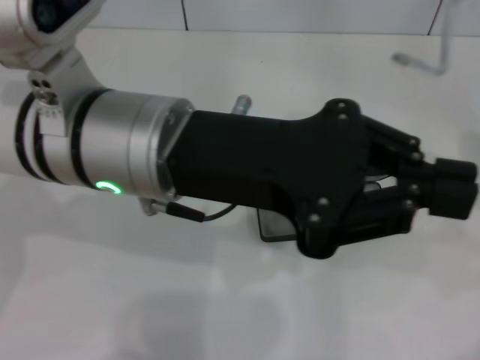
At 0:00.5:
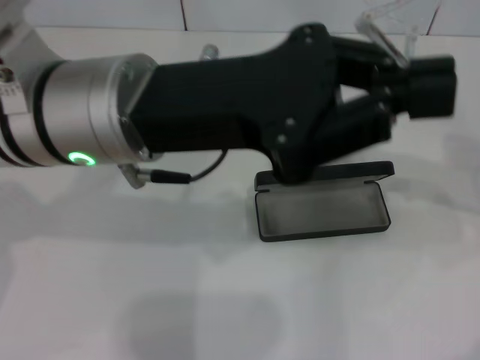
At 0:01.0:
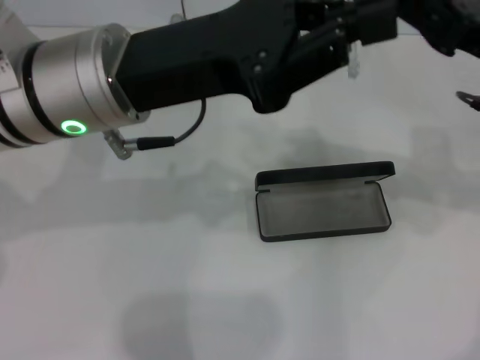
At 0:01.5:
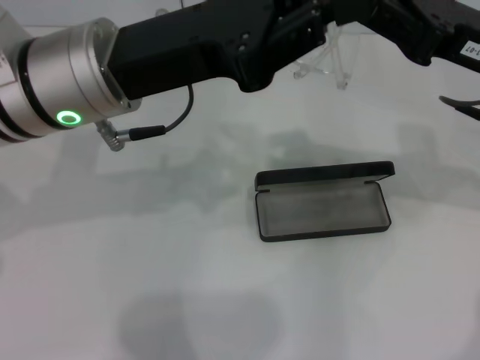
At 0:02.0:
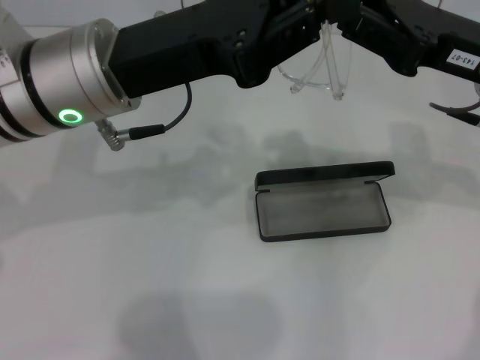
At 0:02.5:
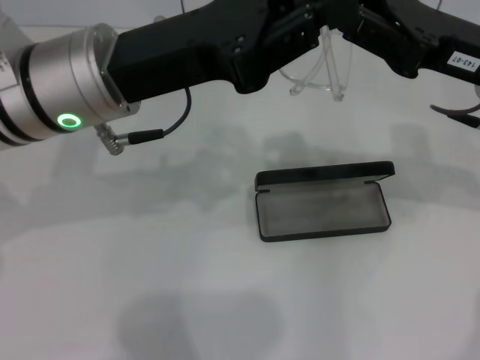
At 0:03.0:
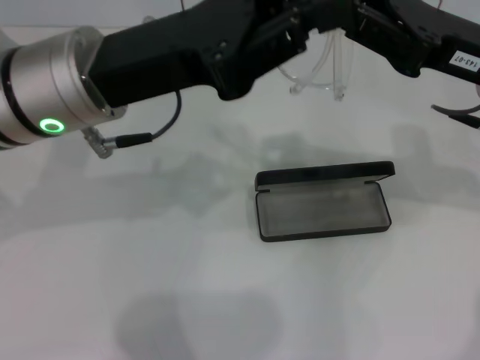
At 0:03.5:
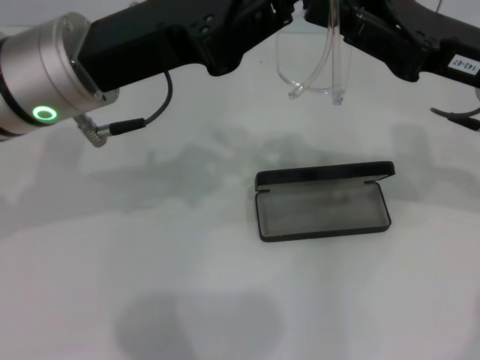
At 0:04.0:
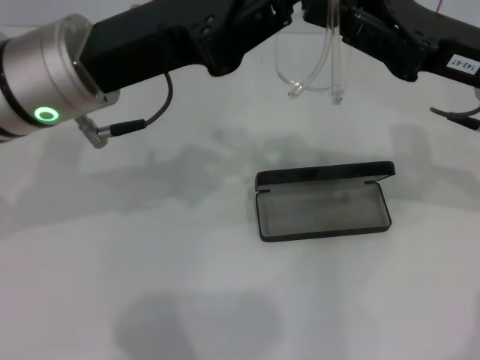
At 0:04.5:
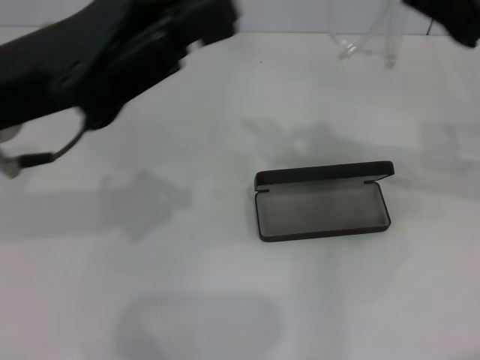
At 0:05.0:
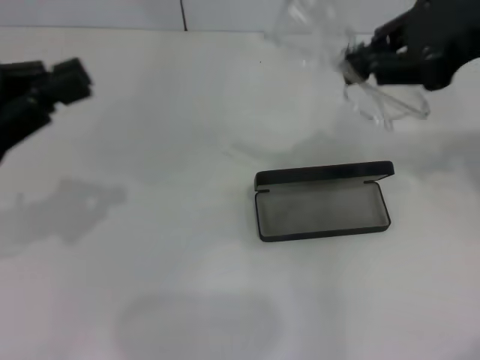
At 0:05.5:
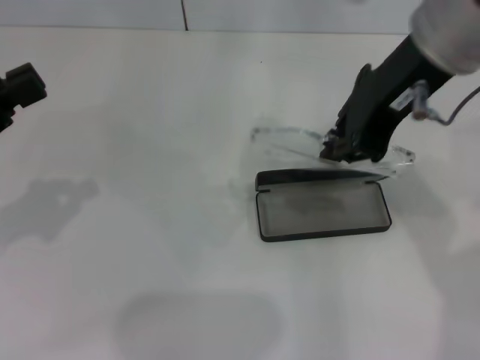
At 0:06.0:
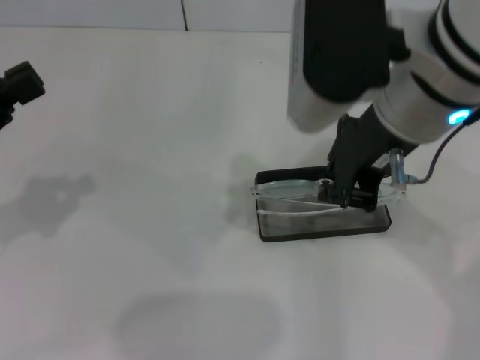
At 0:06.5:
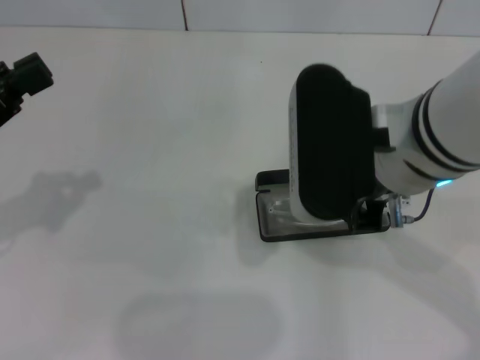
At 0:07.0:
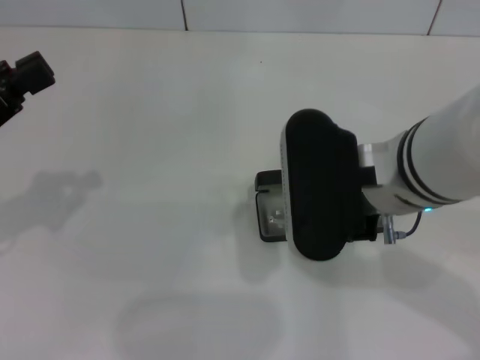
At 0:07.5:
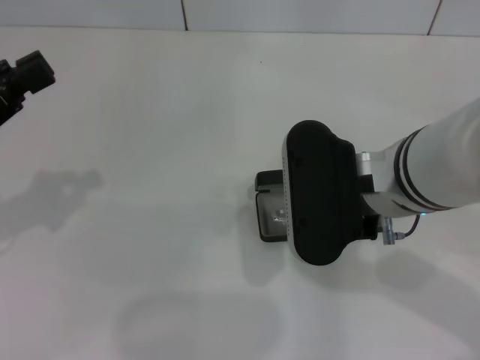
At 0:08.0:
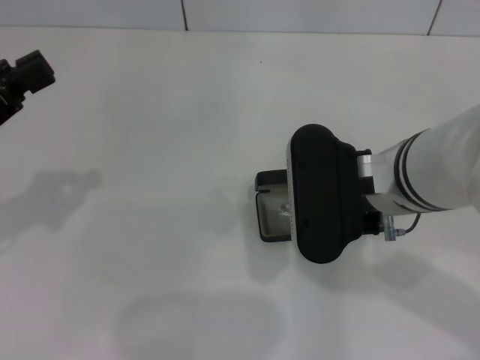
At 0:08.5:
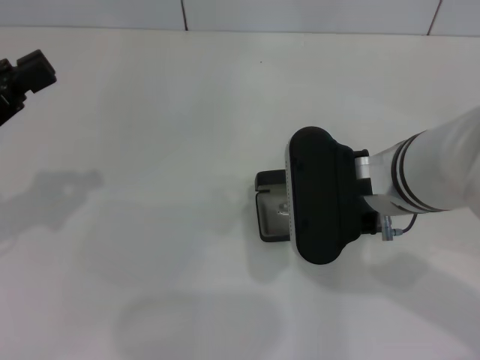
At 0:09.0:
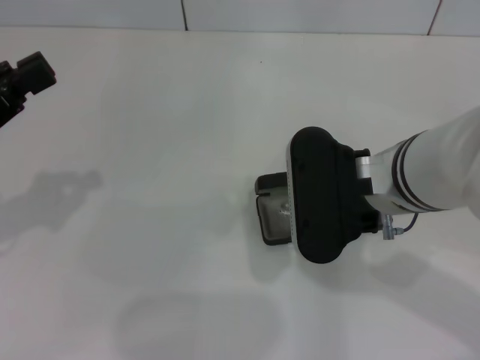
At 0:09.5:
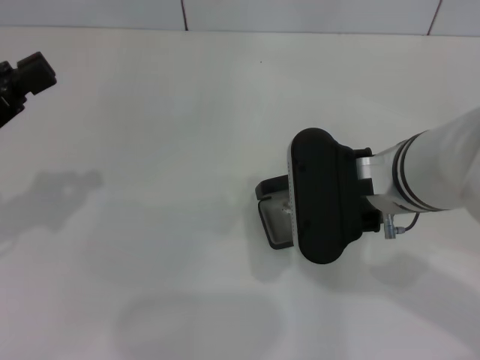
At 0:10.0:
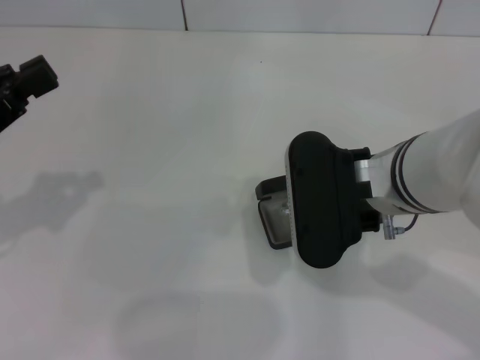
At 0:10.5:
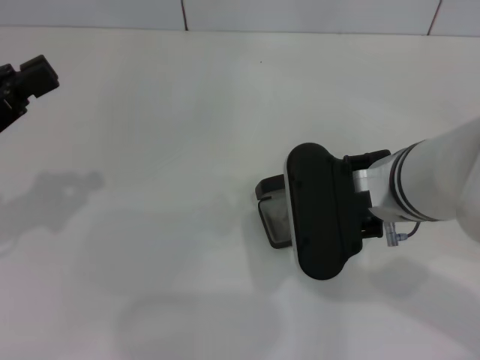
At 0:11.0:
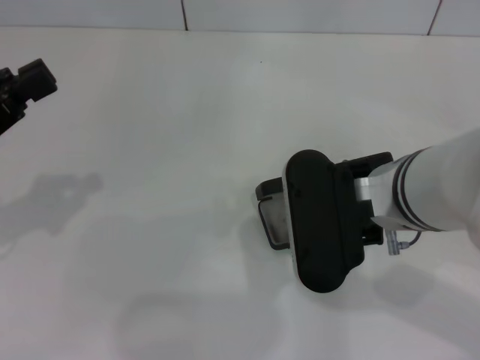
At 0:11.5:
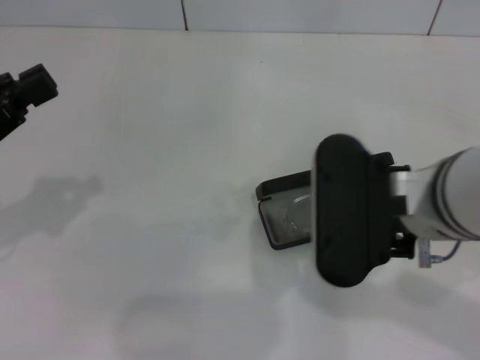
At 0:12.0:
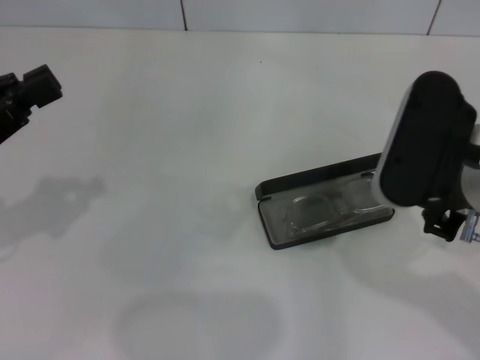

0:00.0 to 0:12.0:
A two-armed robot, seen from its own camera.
Step, 0:00.0 to 0:04.0: Fold the frame with your left hand.
Step, 0:04.5 to 0:11.0: Put the glasses into the case with your right hand.
0:00.0 to 0:02.0: The left gripper ends up about 5 cm from where it was. Meanwhile the right gripper shifts approximately 5 cm to the left.
0:02.0 to 0:04.0: Both grippers stay put.
0:04.0 to 0:06.0: The left gripper moves to the left and backward, about 20 cm; the right gripper travels to the left and upward by roughly 15 cm.
0:06.0 to 0:08.0: The right gripper goes roughly 10 cm downward.
0:08.0 to 0:10.0: Both grippers stay put.
0:10.0 to 0:12.0: The right gripper shifts roughly 5 cm to the right.

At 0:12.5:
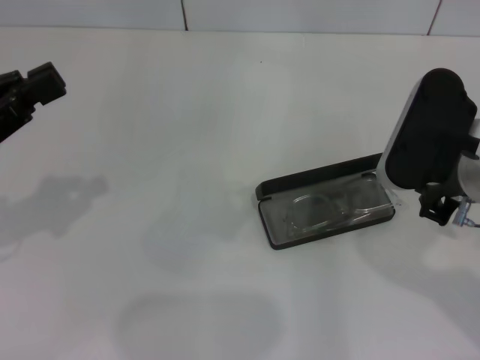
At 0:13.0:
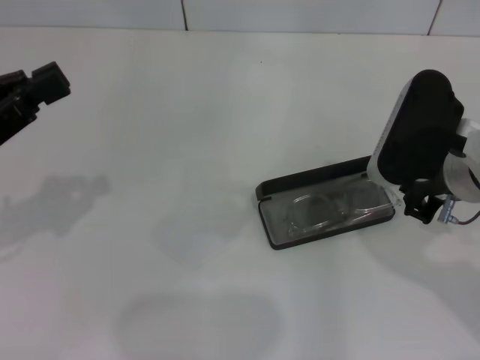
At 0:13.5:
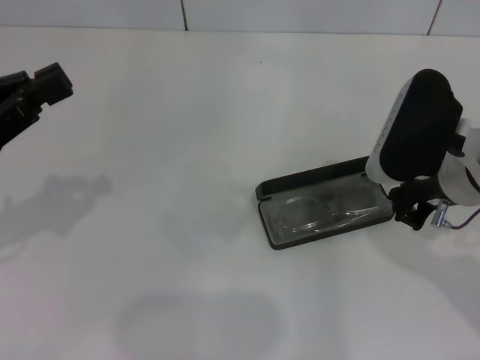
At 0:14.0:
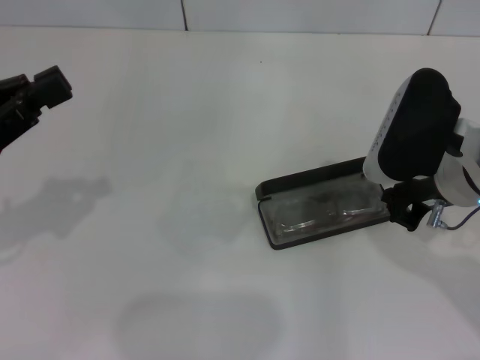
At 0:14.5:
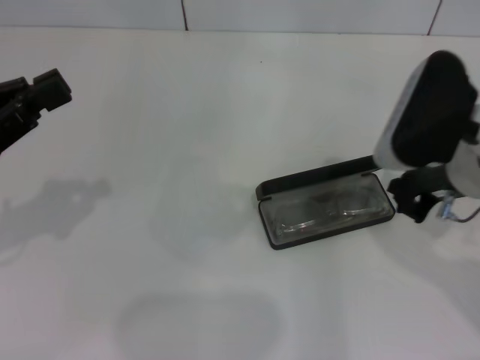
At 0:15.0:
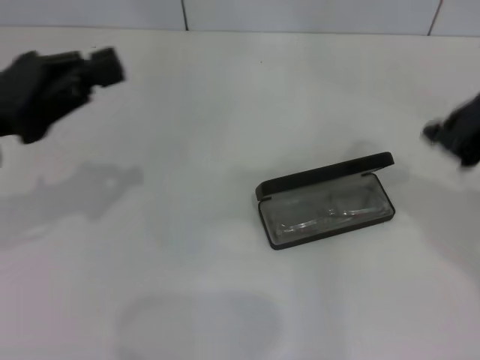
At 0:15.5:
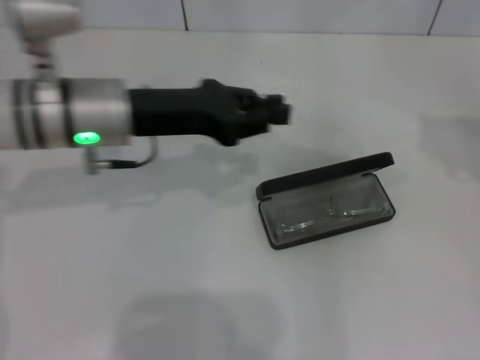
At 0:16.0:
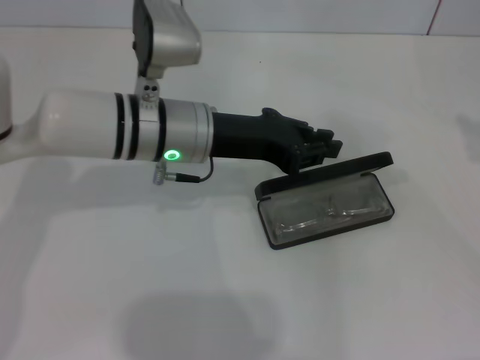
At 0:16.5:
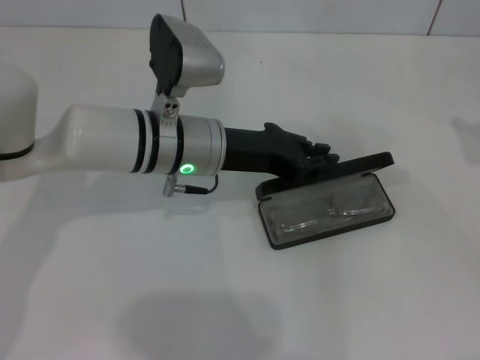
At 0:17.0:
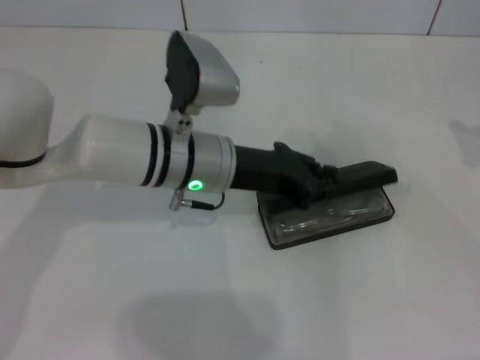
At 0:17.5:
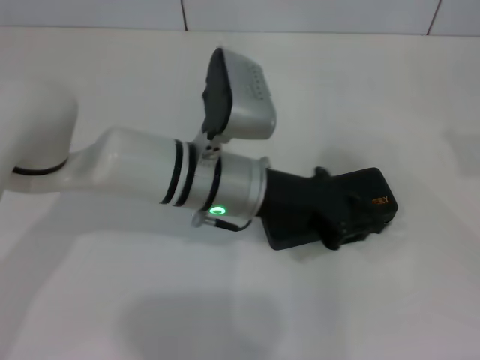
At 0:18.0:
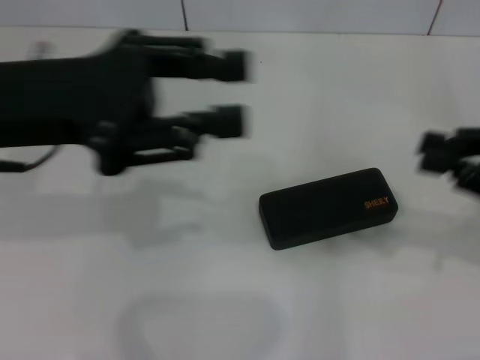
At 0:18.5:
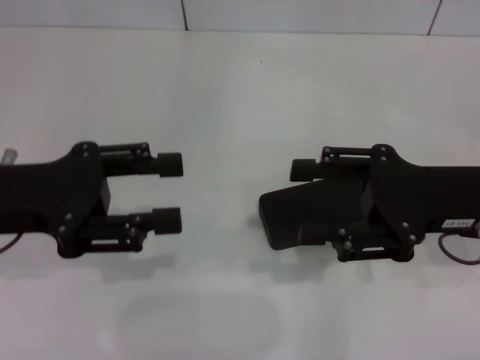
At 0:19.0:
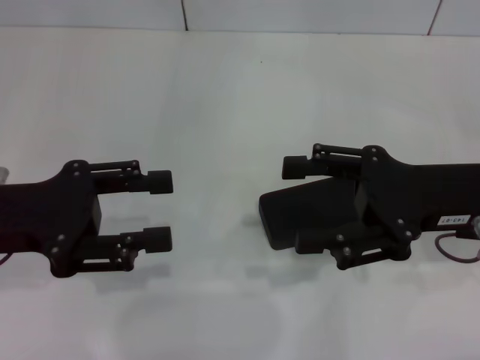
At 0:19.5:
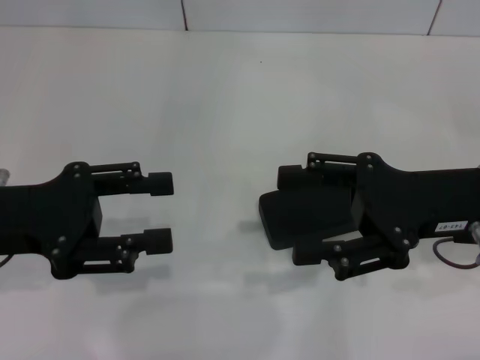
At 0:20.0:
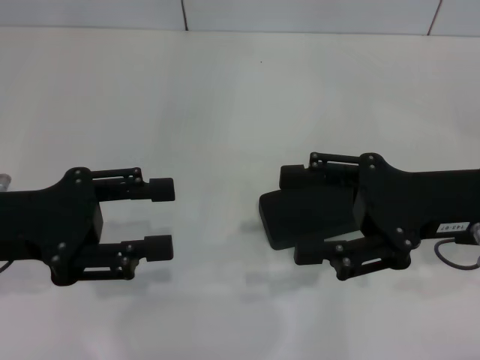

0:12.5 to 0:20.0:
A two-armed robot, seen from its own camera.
Step, 0:12.5 to 0:17.0: Close the glasses case with your left hand.
0:12.5 to 0:14.5: The grippers stay close to where they were, moving slightly.
0:14.5 to 0:16.5: The left gripper goes some 25 cm to the right and forward. The right gripper shifts approximately 20 cm to the right.
0:16.5 to 0:18.0: The right gripper heads to the left and downward, covering approximately 10 cm; the left gripper goes about 20 cm to the left, upward and backward.
0:18.0 to 0:20.0: The left gripper shifts some 5 cm downward, and opens. Meanwhile the right gripper shifts approximately 10 cm to the left, and opens up.

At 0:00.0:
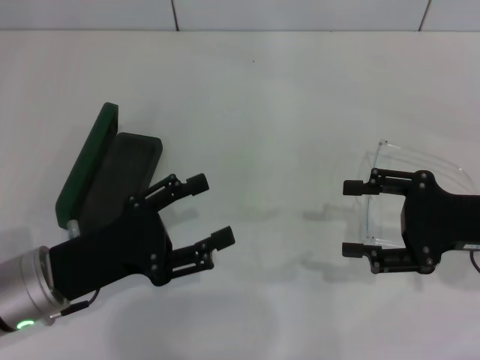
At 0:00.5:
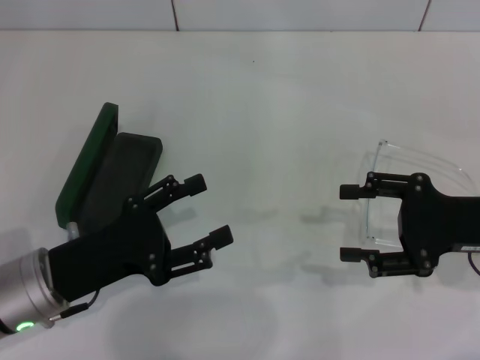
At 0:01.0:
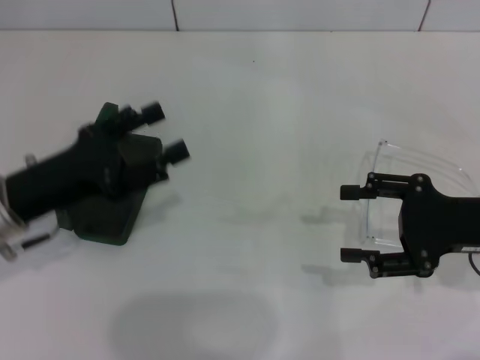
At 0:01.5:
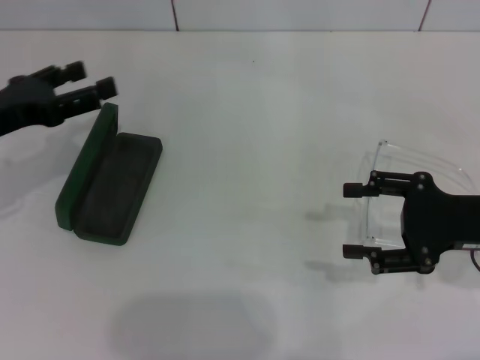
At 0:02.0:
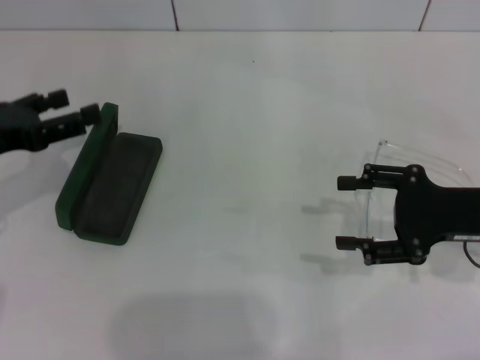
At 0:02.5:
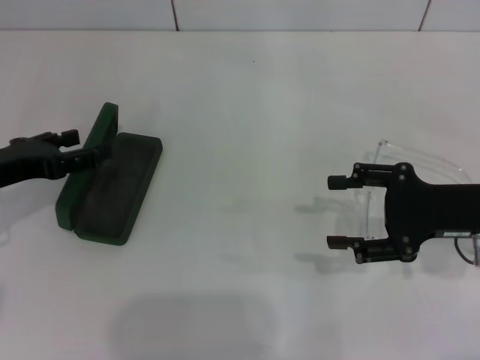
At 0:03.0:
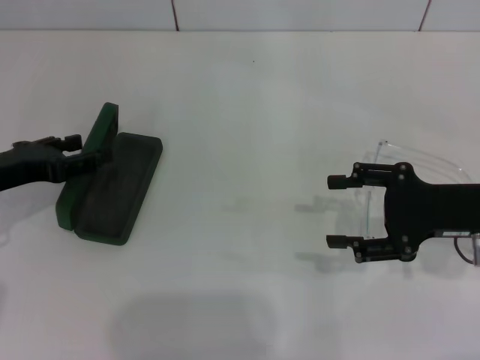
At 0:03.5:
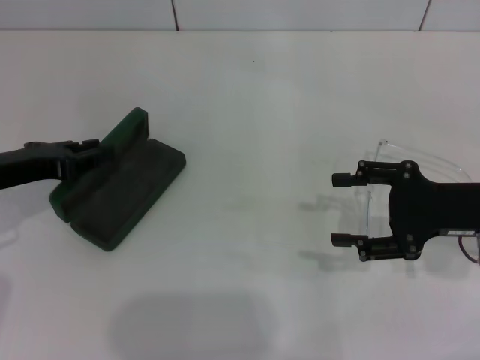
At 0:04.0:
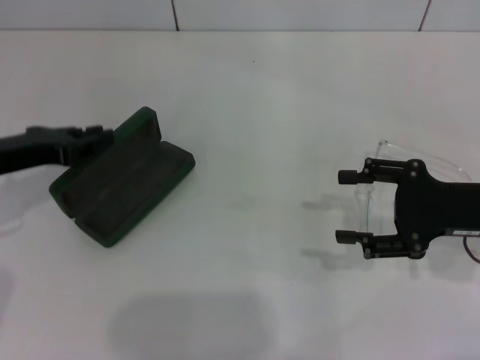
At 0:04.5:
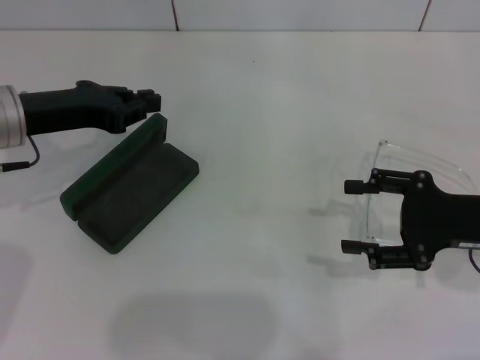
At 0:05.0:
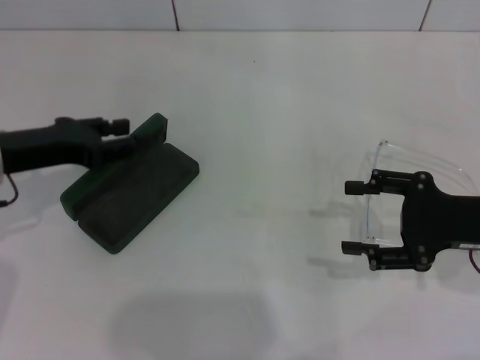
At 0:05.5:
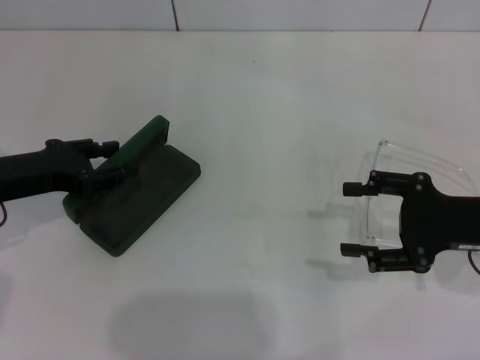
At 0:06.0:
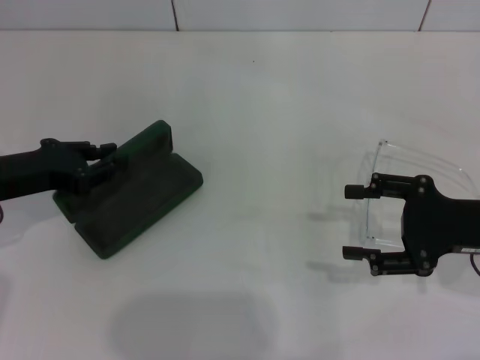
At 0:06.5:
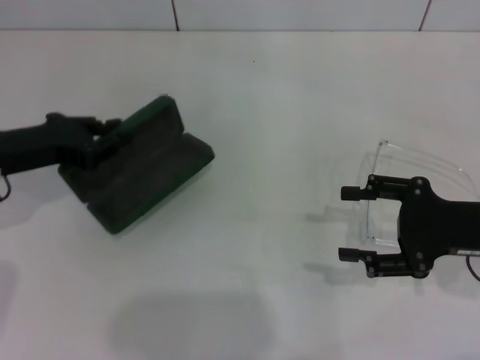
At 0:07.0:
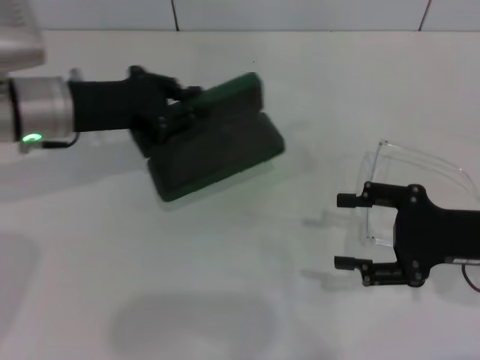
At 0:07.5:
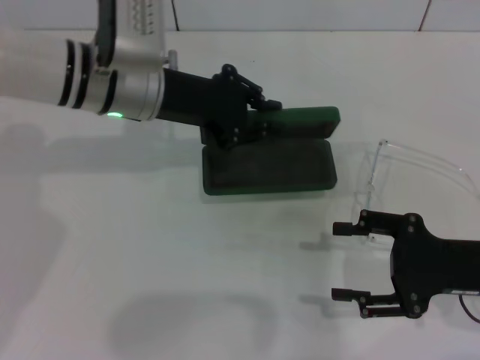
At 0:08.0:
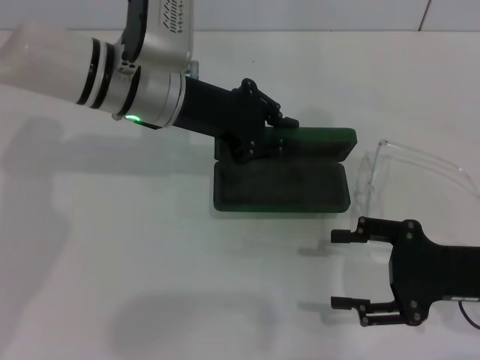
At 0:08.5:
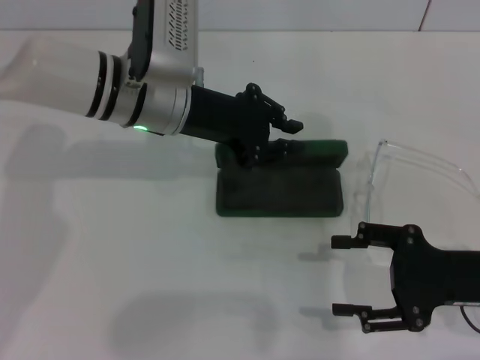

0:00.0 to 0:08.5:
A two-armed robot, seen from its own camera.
Step, 0:00.0 to 0:03.5: Grab the glasses case with your left hand.
Step, 0:04.0 to 0:08.5: Place the glasses case in the center of the table with your left hand.
0:00.0 to 0:02.0: The left gripper moves to the left, upward and forward, some 15 cm.
0:02.0 to 0:04.0: The left gripper closes its fingers.
0:04.0 to 0:06.5: The left gripper opens and closes again.
0:06.5 to 0:08.5: The left gripper travels to the right by approximately 20 cm.
